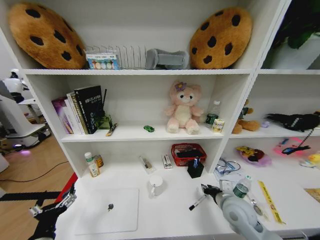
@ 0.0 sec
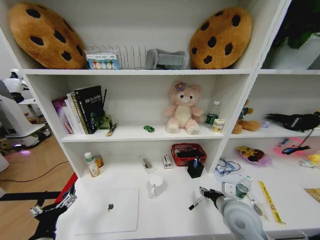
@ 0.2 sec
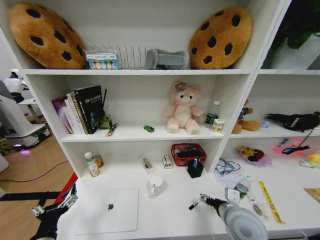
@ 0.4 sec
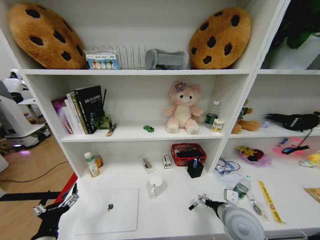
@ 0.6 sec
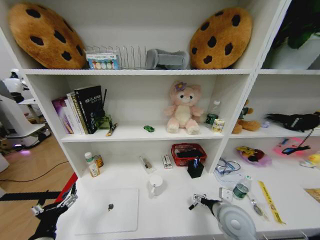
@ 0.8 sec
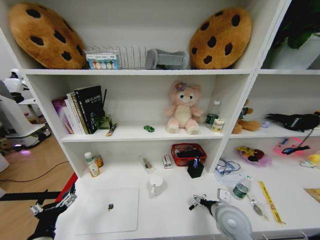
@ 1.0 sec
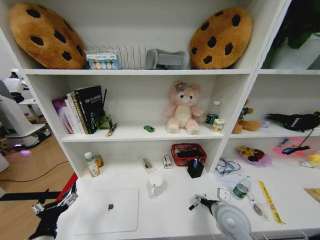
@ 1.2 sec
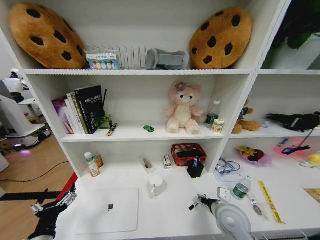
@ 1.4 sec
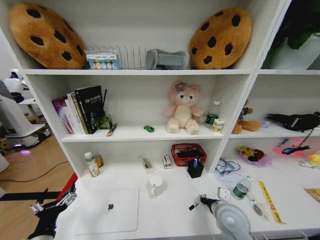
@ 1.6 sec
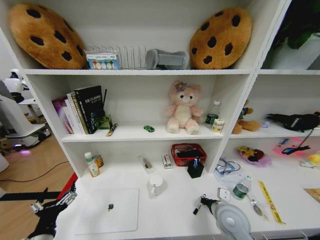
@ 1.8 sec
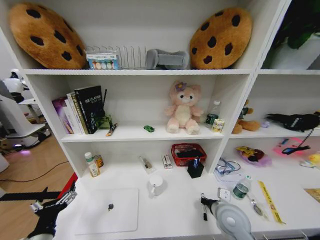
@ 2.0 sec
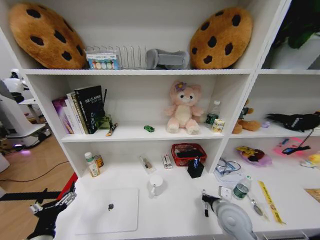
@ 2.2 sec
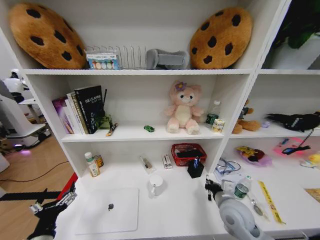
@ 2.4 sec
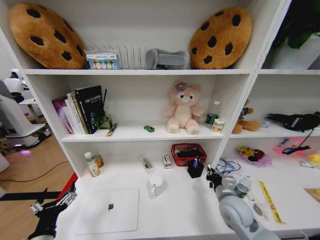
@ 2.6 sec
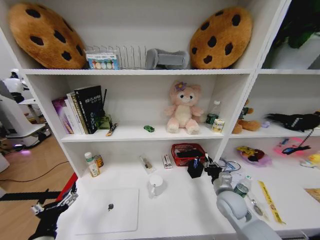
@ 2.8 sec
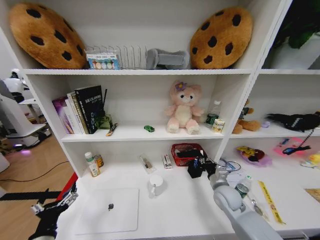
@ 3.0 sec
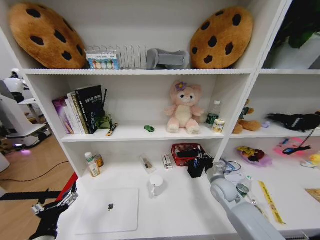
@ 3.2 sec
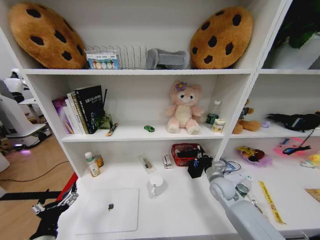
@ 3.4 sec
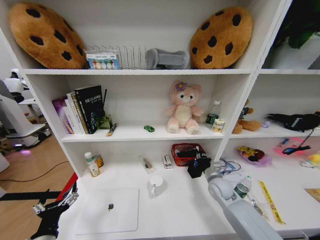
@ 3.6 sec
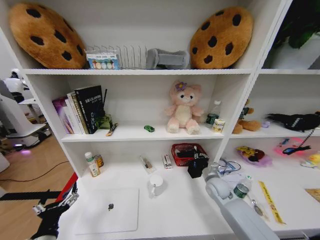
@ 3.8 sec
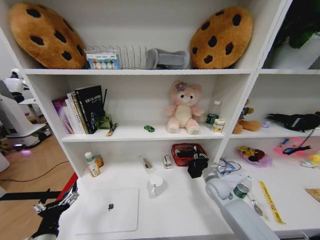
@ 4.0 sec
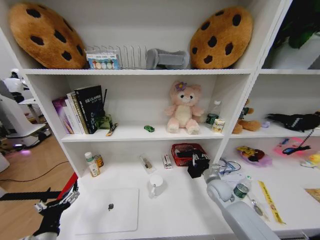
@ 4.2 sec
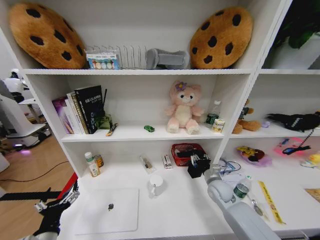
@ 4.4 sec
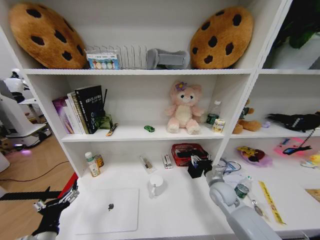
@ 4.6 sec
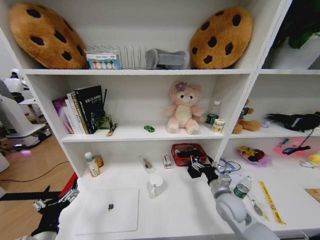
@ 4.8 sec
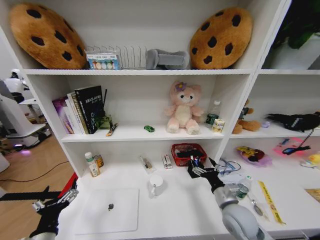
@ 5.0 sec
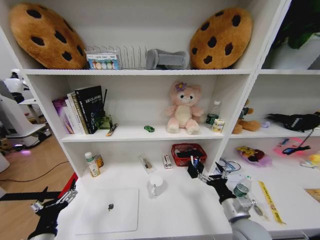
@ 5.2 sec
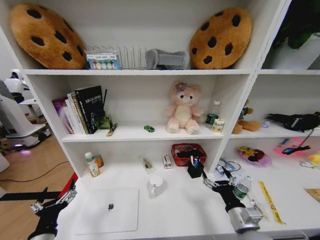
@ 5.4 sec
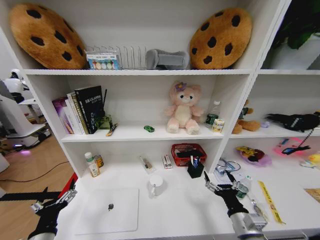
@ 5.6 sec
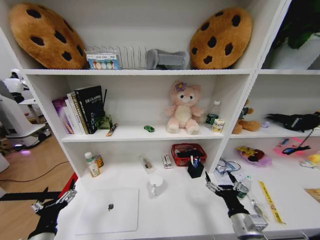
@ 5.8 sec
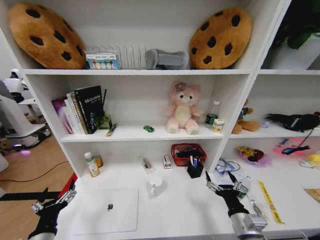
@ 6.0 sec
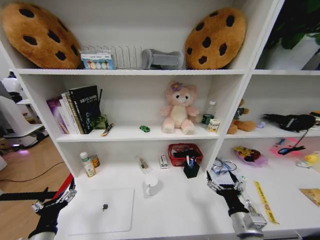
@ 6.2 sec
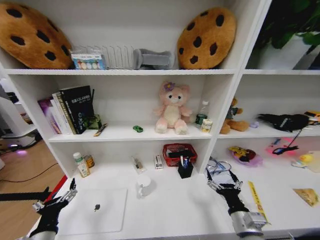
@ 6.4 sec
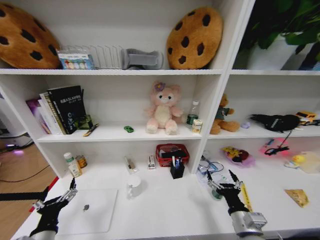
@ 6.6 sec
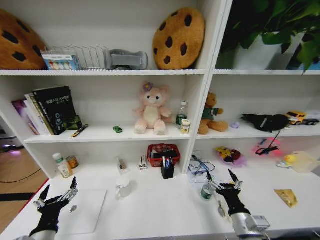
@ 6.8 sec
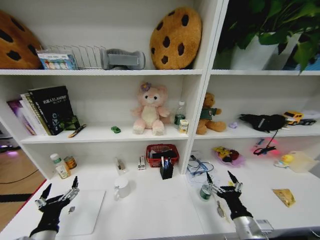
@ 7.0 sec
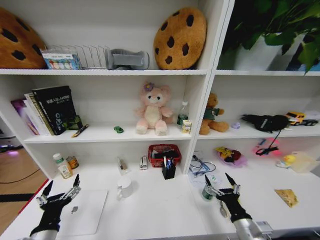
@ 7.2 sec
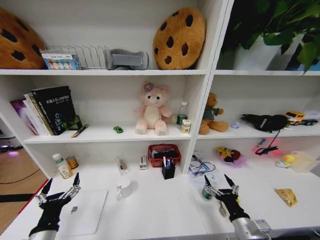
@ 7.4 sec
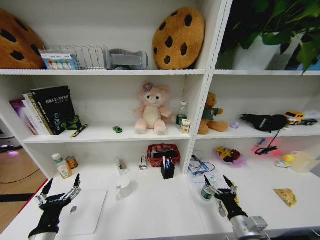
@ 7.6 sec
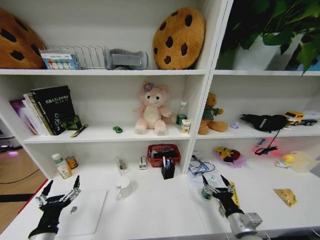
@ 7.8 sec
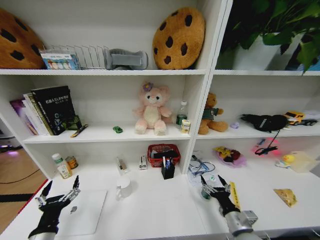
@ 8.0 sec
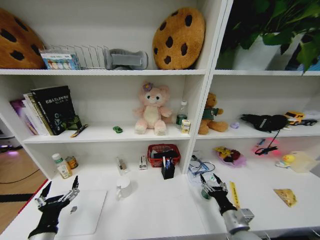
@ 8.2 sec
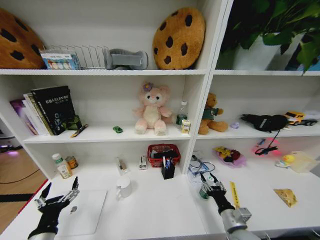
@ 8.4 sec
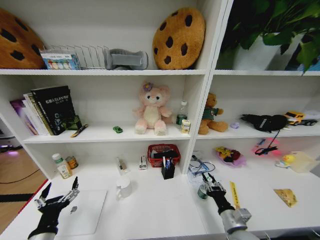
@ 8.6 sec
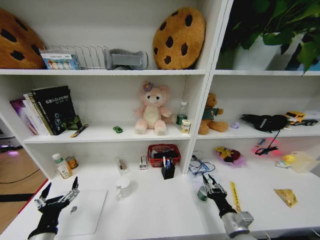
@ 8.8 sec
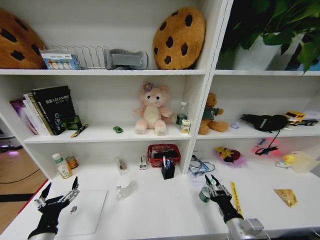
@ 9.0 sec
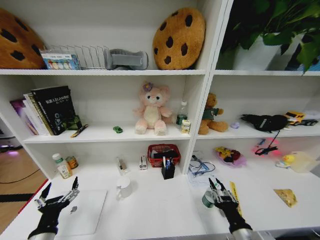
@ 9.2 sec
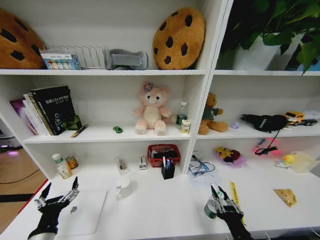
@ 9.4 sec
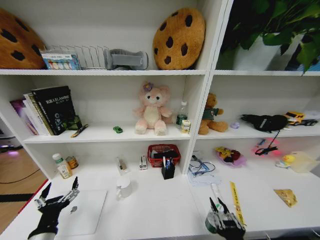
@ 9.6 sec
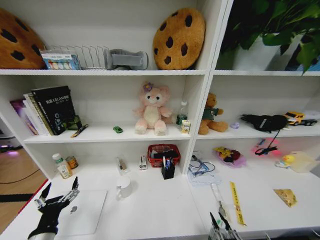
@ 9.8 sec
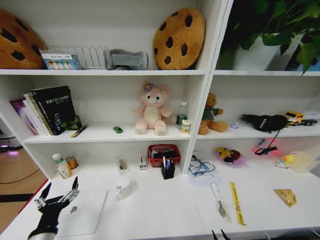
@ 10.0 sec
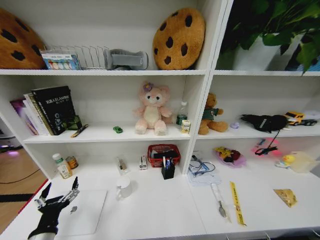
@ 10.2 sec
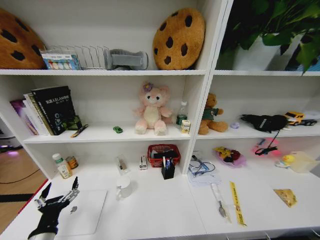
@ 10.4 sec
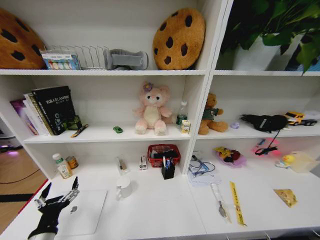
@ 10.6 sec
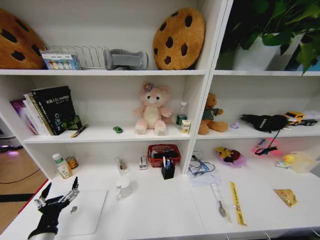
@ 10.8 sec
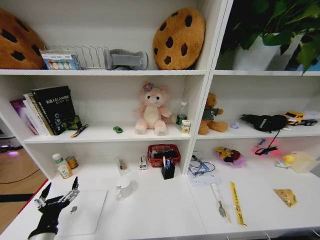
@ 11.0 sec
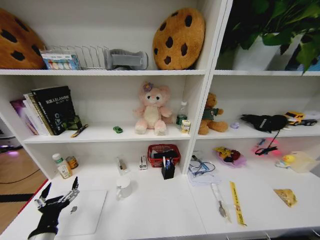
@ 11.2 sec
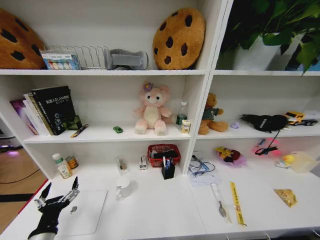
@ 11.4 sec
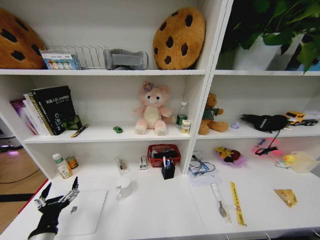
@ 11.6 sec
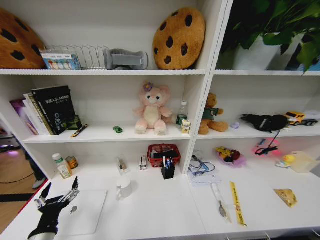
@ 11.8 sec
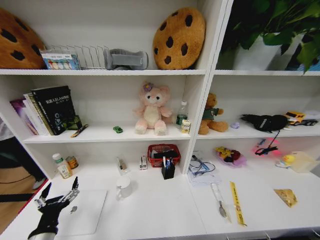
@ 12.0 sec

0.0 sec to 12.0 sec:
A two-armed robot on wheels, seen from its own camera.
Task of the whole recording: Organize the objects on the table.
0.0 sec to 1.6 sec: The right gripper opens and closes again.
1.6 sec to 3.0 sec: The right gripper moves forward, about 10 cm, and closes its fingers.
3.0 sec to 4.4 sec: The right gripper opens up.
4.4 sec to 6.0 sec: The right gripper heads backward, covering approximately 20 cm, and opens.
7.6 sec to 9.0 sec: The right gripper closes.
9.0 sec to 10.4 sec: The right gripper heads backward, covering about 25 cm.

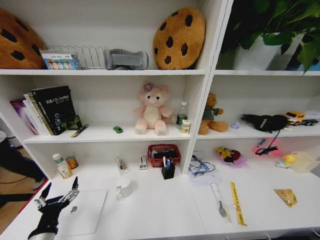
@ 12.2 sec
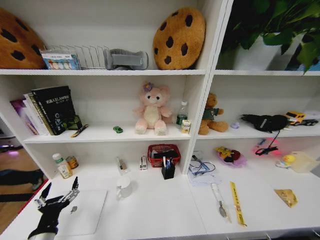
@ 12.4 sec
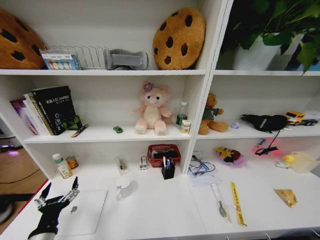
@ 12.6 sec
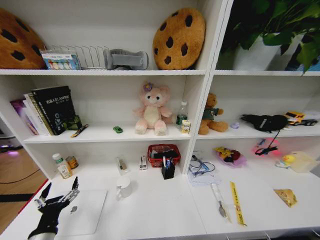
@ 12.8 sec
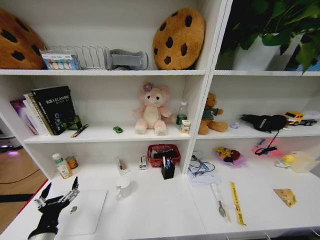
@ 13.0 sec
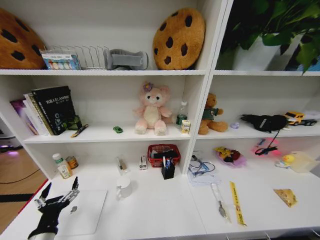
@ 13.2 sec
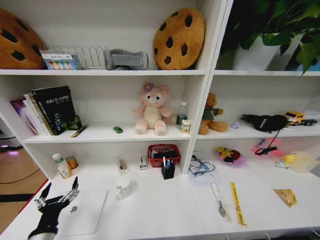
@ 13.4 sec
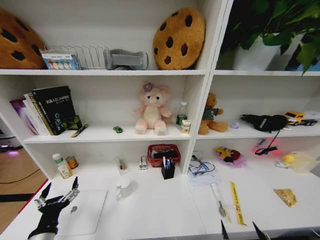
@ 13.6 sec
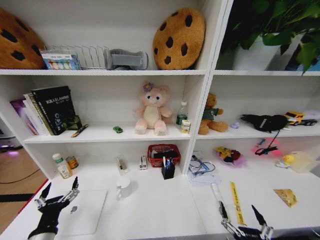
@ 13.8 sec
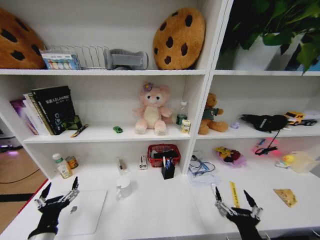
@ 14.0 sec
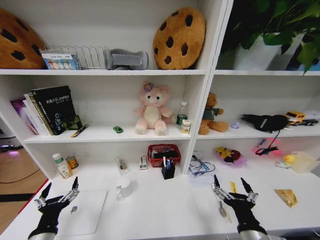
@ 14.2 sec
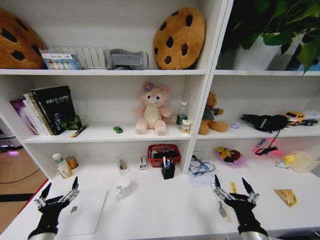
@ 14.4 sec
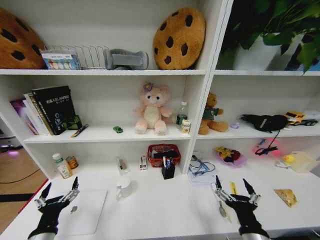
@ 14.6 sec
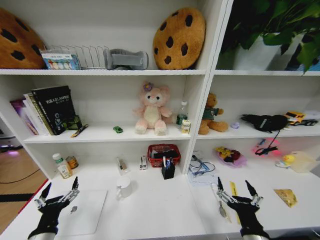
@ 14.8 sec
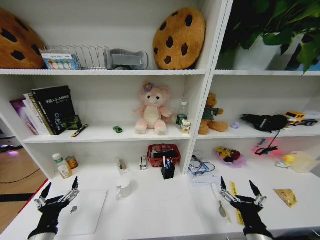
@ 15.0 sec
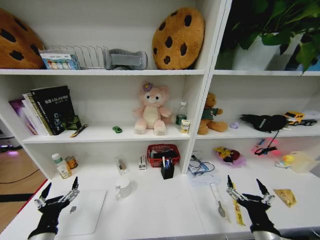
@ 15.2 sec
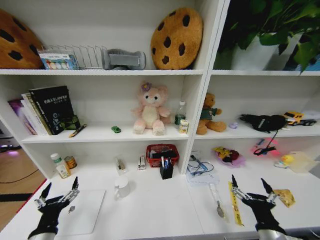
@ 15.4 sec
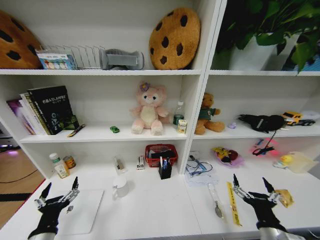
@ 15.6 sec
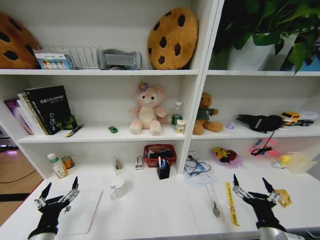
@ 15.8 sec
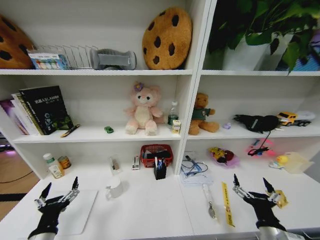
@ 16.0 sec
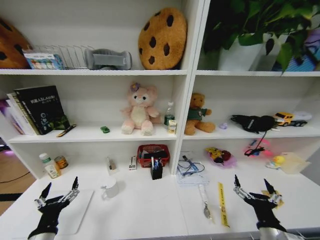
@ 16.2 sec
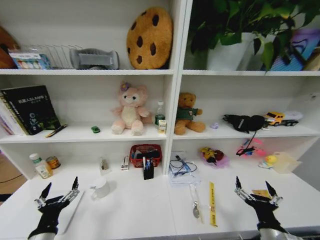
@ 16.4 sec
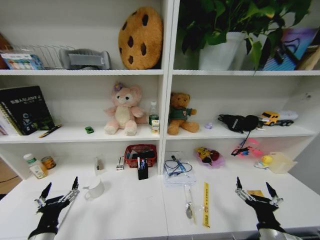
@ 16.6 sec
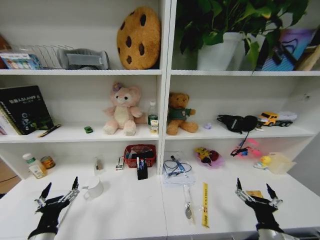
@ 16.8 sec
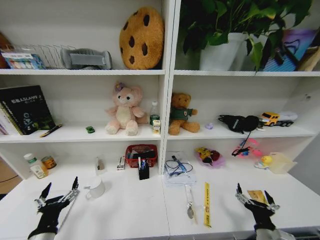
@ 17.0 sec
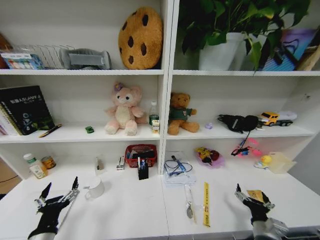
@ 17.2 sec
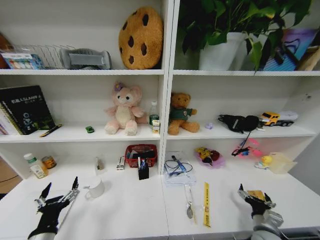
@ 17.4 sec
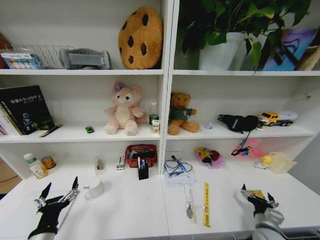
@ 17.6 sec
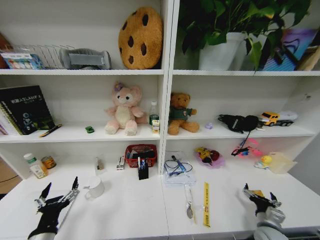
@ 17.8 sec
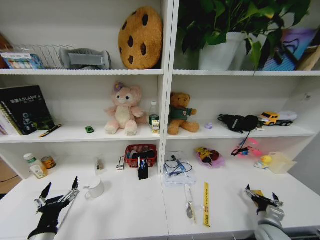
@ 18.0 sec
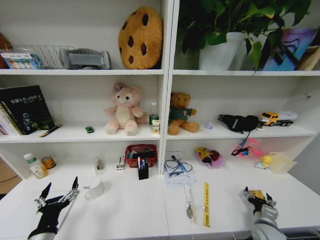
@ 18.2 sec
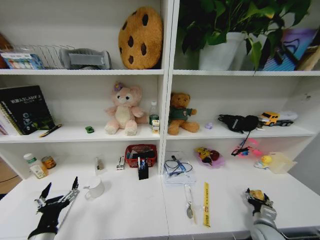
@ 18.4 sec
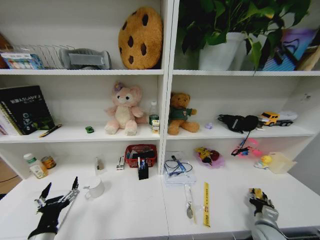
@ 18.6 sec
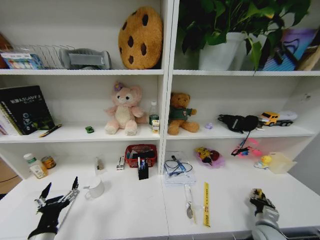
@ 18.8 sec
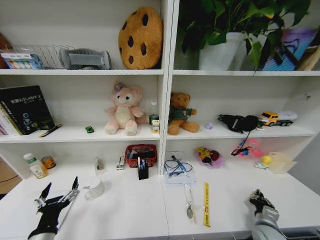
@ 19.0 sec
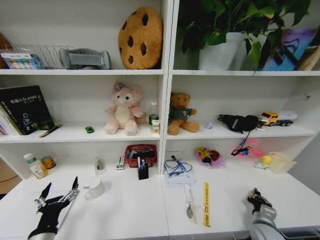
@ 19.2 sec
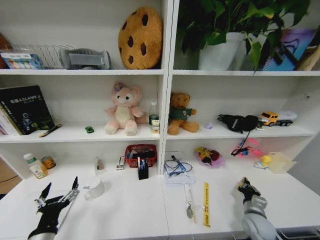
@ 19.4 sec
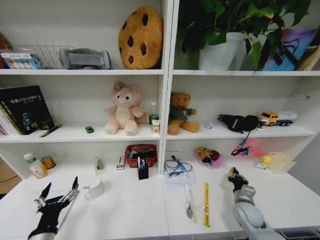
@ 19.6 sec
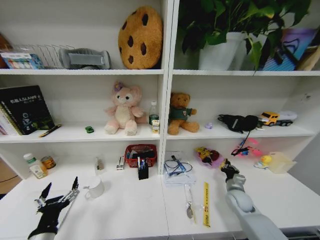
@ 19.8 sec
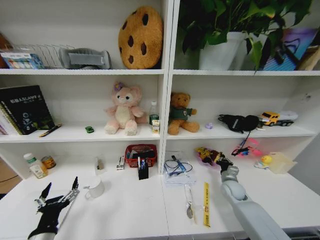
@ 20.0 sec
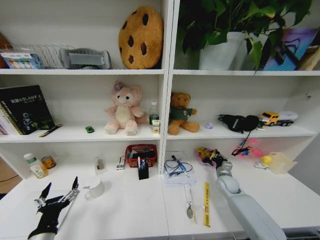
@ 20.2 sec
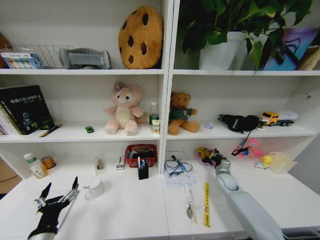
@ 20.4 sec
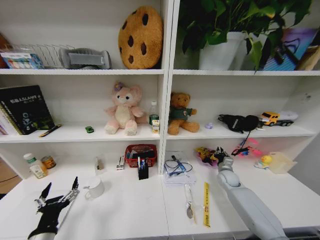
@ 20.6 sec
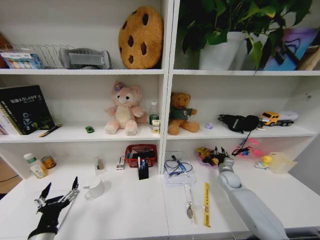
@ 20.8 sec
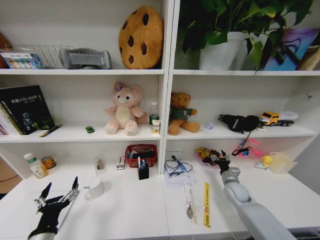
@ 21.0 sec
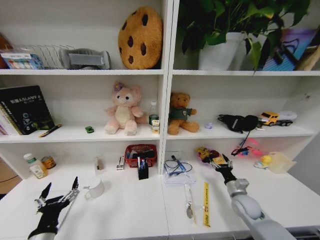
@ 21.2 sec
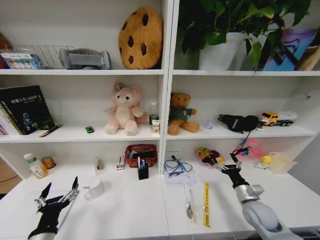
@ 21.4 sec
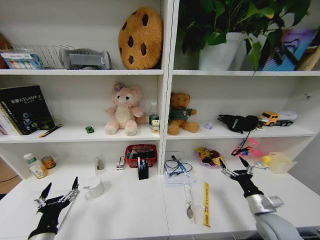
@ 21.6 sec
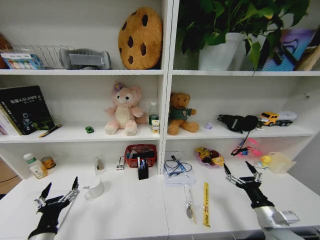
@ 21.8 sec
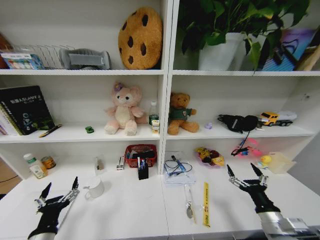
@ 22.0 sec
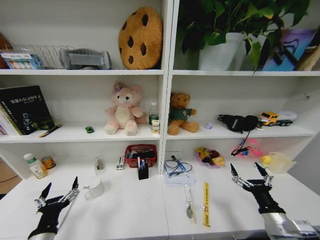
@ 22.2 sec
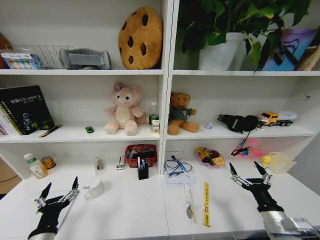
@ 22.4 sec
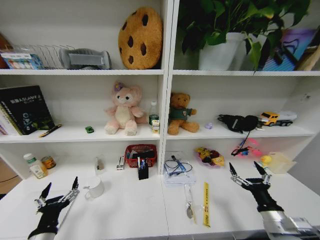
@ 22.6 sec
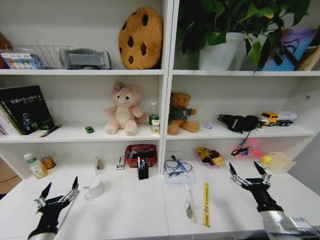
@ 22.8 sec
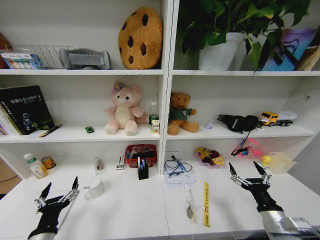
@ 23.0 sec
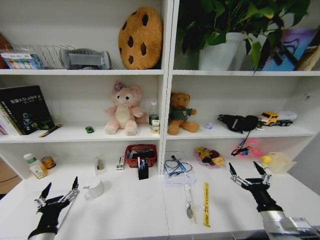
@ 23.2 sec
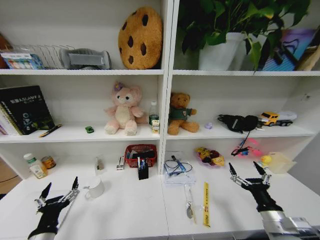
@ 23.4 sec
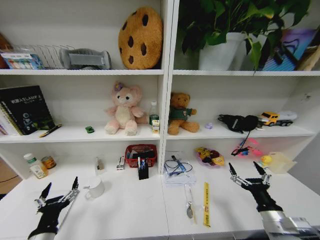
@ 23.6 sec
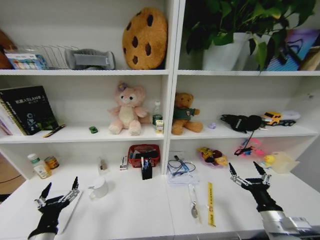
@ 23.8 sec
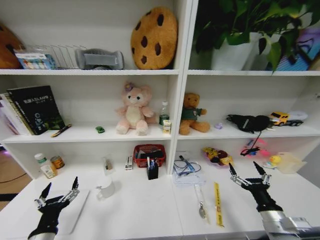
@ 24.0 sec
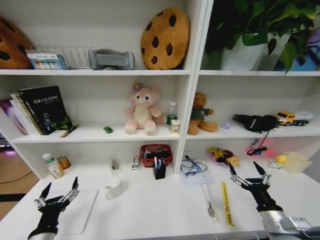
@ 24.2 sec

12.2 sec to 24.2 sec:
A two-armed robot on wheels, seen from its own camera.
Task of the whole recording: Organize the objects on the table.
12.2 sec to 13.8 sec: The right gripper goes about 30 cm upward, and opens its fingers.
13.8 sec to 15.2 sec: The right gripper is displaced forward by about 10 cm.
16.6 sec to 18.2 sec: The right gripper goes some 20 cm downward, to the right and forward.
18.2 sec to 19.8 sec: The right gripper is displaced forward and to the left by some 15 cm, and closes its fingers.
19.8 sec to 21.2 sec: The right gripper reaches some 10 cm forward, then returns, and opens up.
21.2 sec to 22.6 sec: The right gripper heads backward and upward, covering approximately 15 cm.
